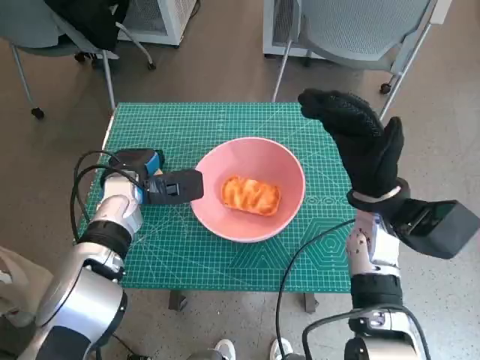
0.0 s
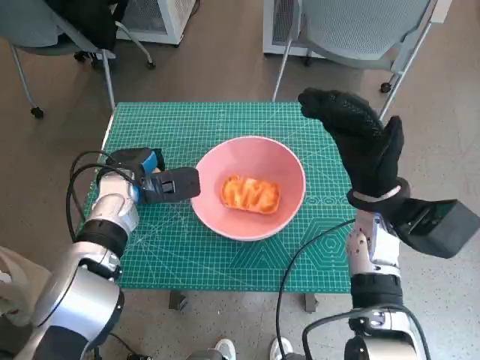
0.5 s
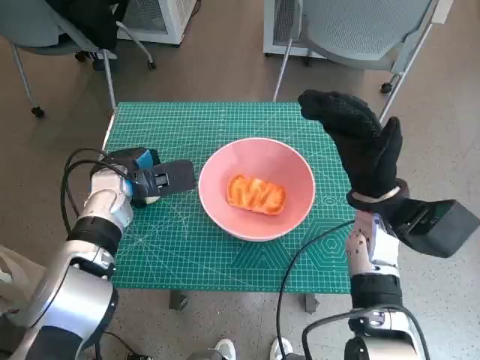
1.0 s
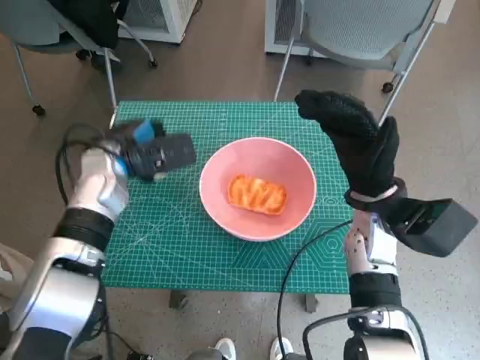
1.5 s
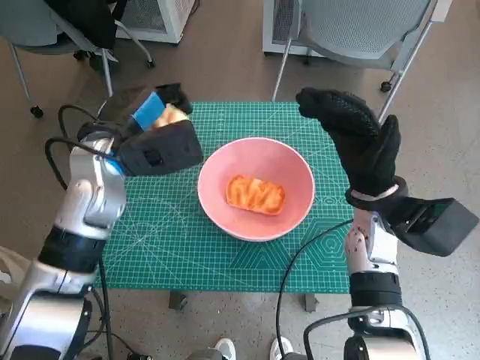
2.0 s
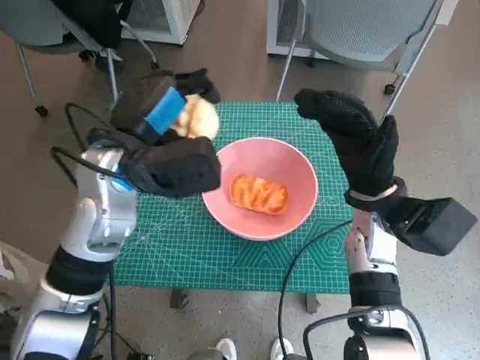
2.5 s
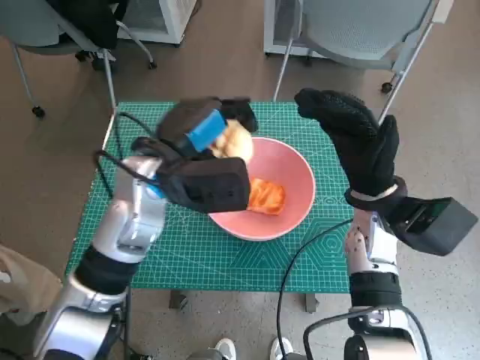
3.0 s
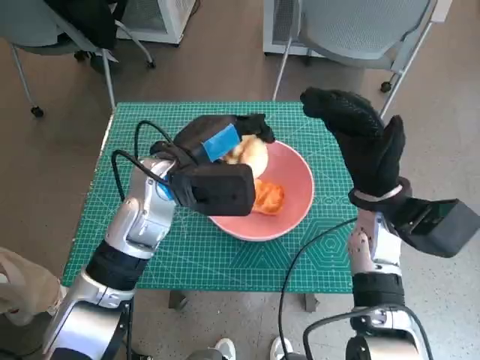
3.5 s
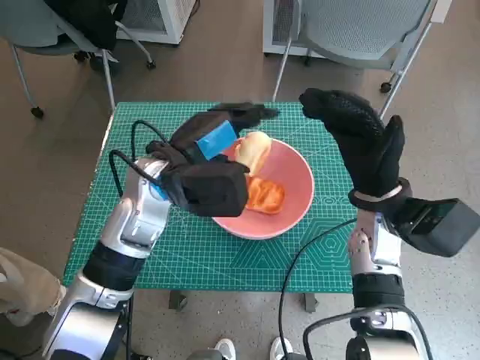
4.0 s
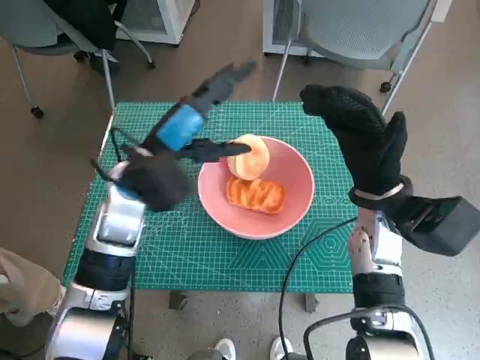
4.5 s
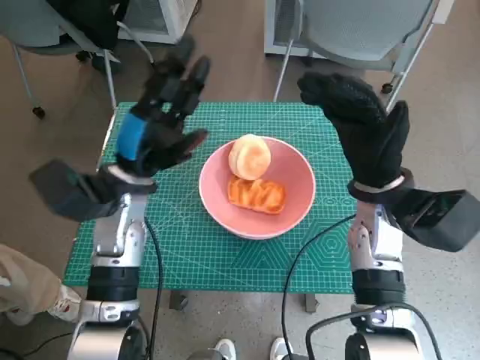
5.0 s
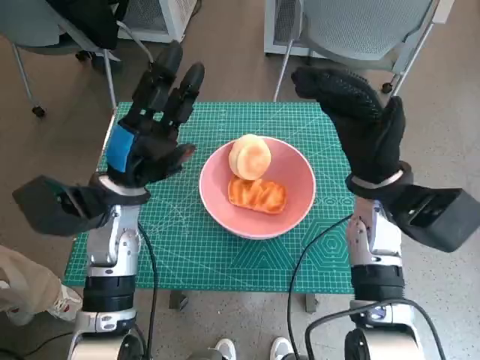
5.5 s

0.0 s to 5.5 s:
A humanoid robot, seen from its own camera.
Step, 1.0 to 3.5 s: Place the round bread in pink bowl with left hand.
0.0 to 2.0 s: The left hand heads upward, covering roughly 10 cm.
2.0 to 3.5 s: The left hand moves to the right, approximately 5 cm.
3.5 to 5.5 s: The left hand shifts roughly 5 cm to the left.

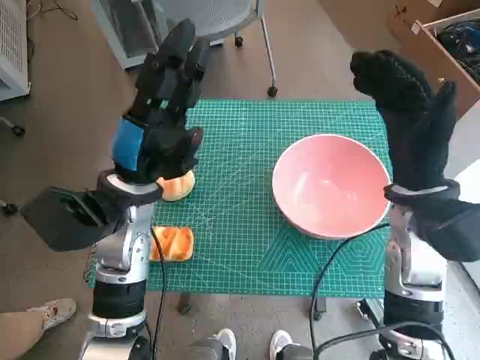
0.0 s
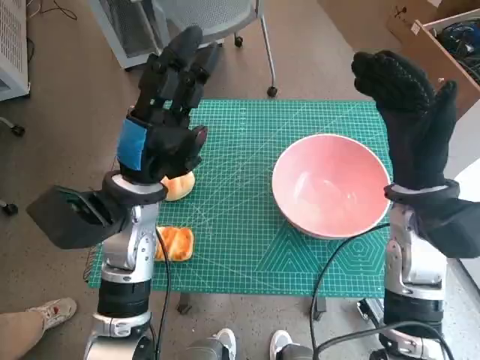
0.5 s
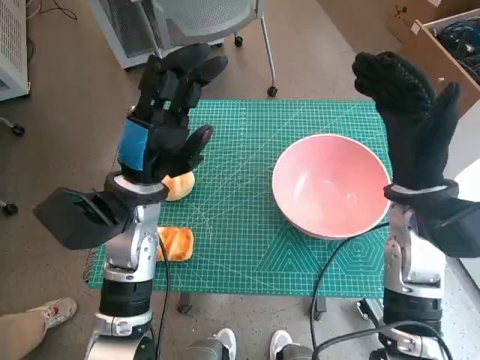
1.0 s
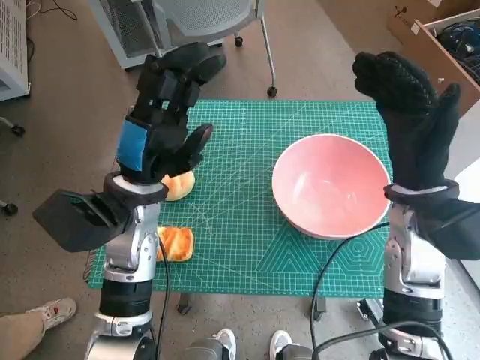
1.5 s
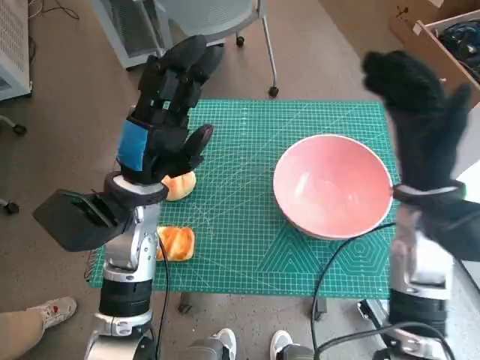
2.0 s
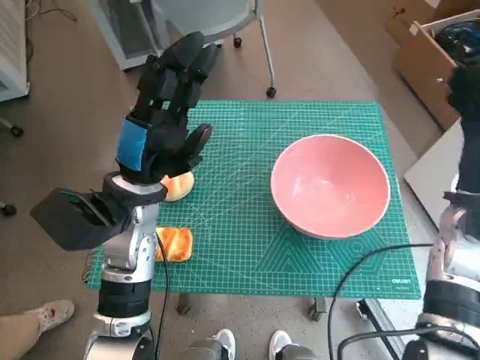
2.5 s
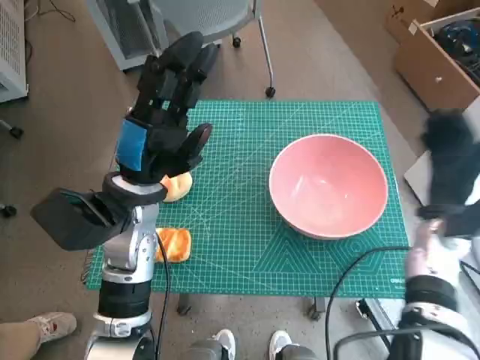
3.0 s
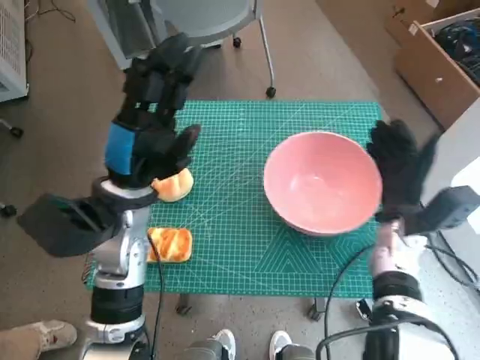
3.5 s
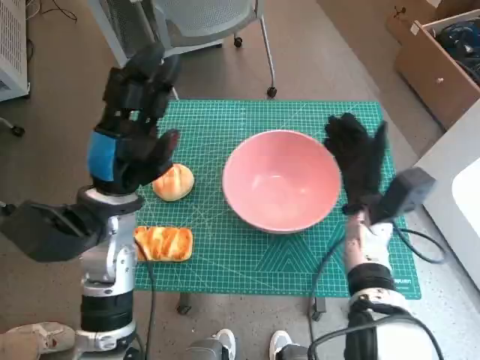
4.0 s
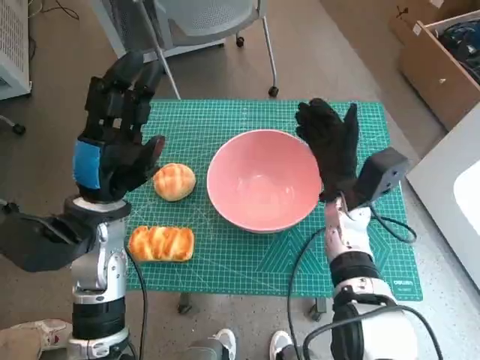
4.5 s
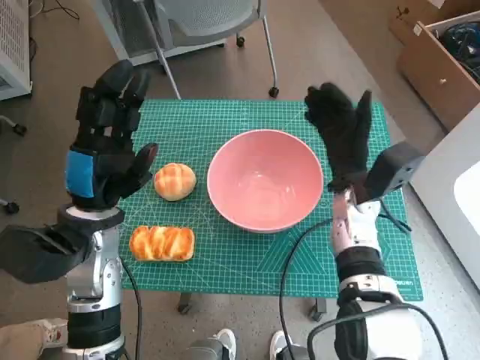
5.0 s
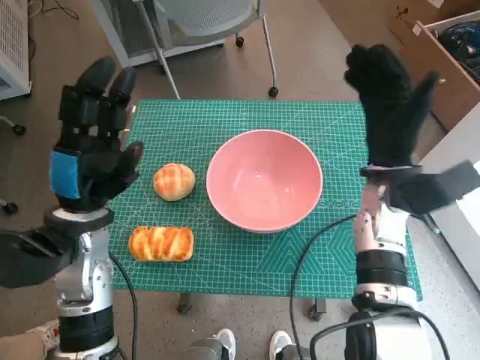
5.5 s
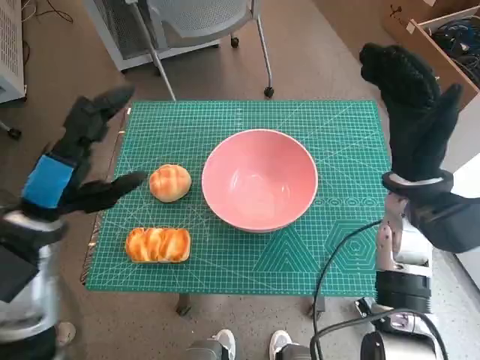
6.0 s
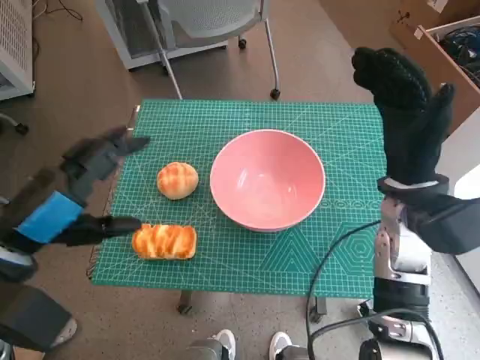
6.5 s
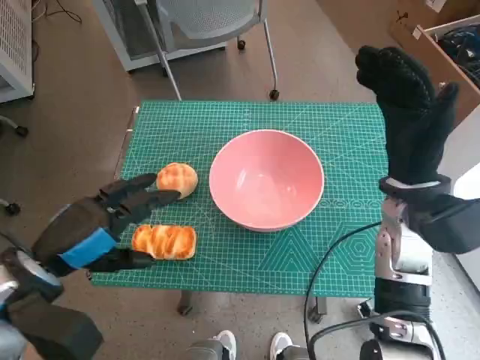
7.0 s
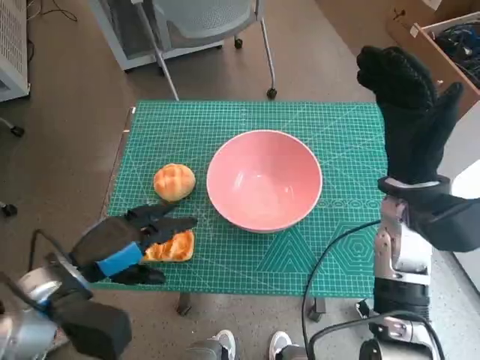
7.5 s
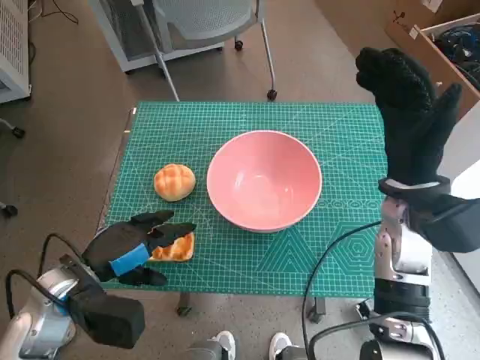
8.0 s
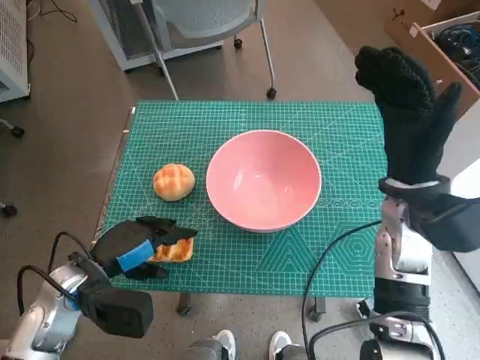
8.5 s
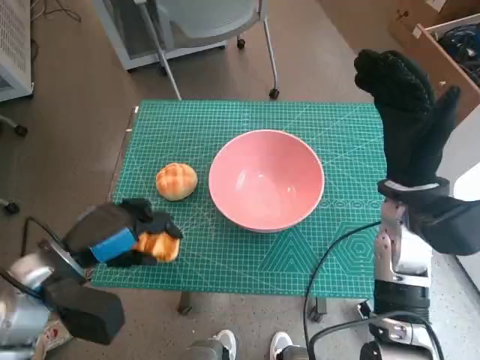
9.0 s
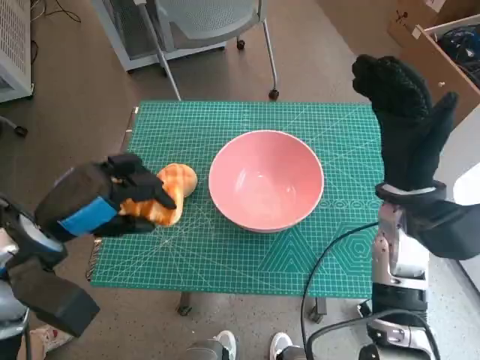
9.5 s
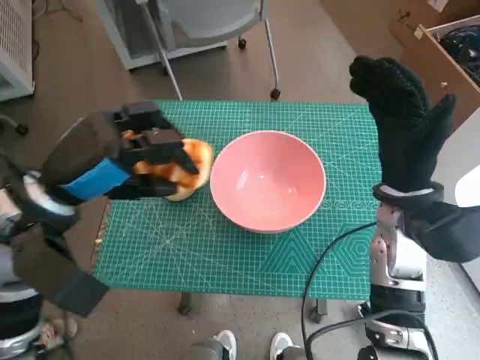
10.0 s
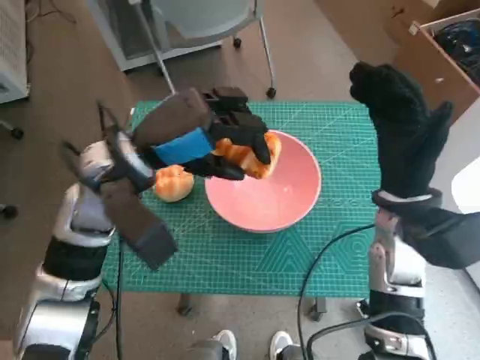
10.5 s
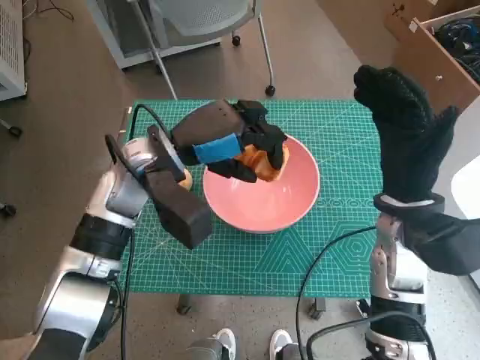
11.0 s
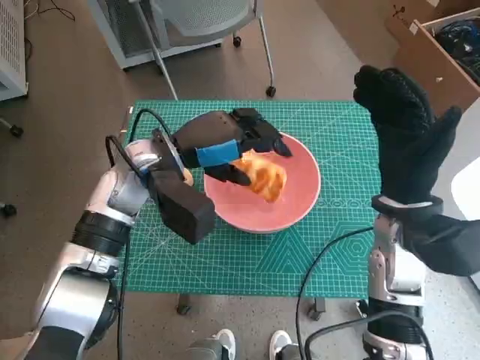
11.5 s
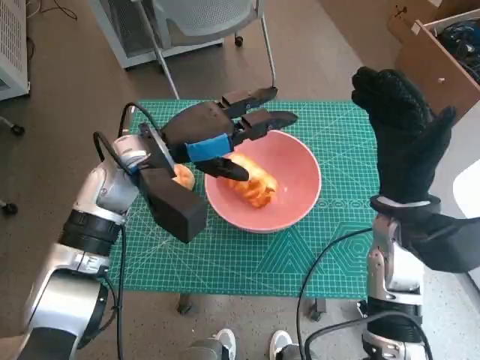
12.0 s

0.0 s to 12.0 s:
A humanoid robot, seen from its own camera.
Step, 0.0 to 4.5 s: Move the pink bowl to the center of table with right hand.
Step, 5.0 to 8.5 s: Grasp the long bread with left hand.
Step, 9.0 to 11.5 s: Place the long bread in pink bowl with left hand.
2.0 to 4.0 s: The right hand heads downward, covering approximately 10 cm.
4.0 to 6.0 s: The left hand heads to the left, covering some 5 cm. The right hand goes some 10 cm upward.
6.0 to 8.0 s: The left hand travels downward by roughly 10 cm.
8.0 to 10.0 s: The left hand goes approximately 15 cm upward.
10.0 to 12.0 s: The left hand is displaced forward and to the right by some 10 cm.

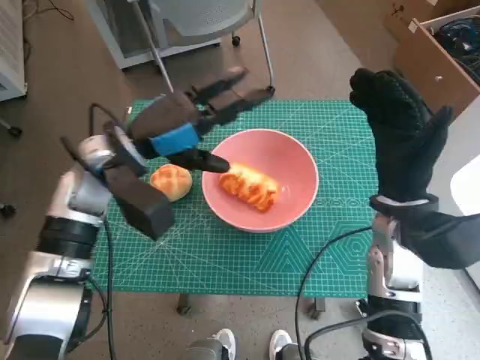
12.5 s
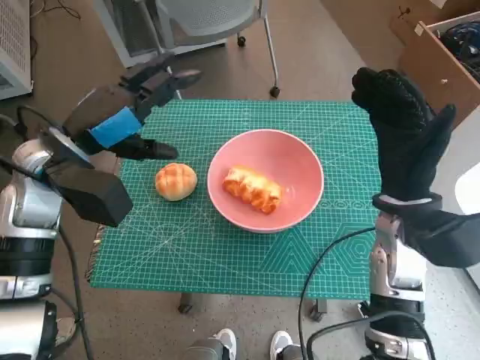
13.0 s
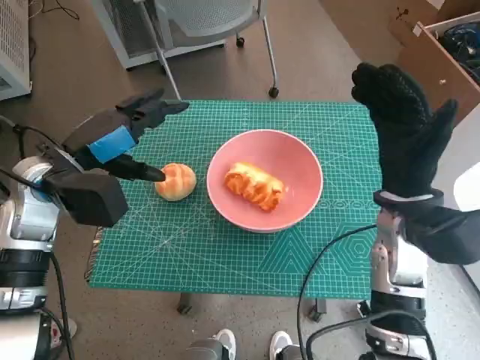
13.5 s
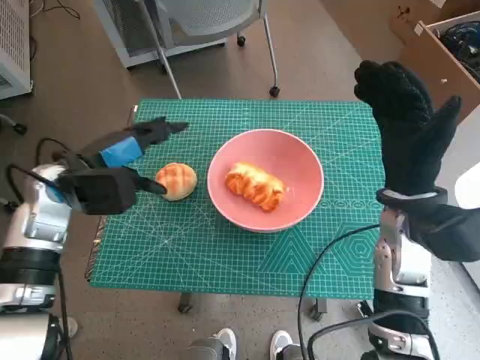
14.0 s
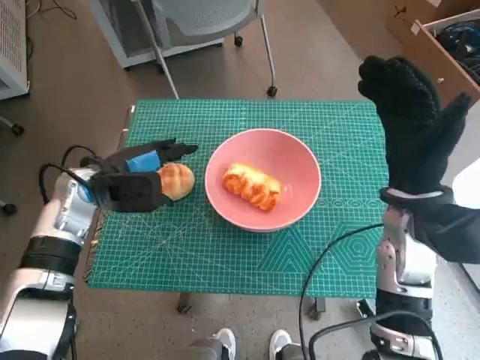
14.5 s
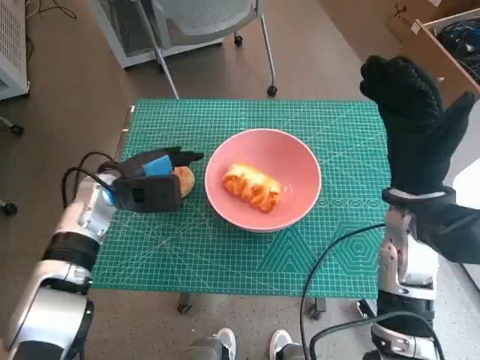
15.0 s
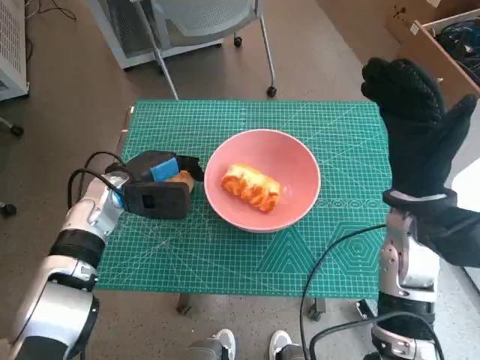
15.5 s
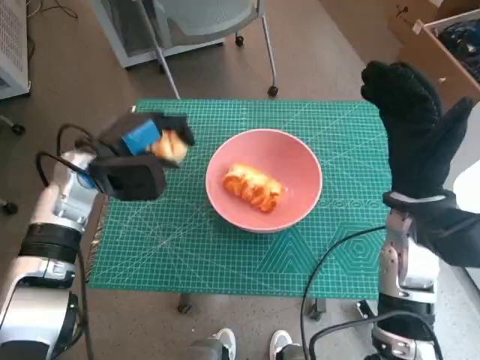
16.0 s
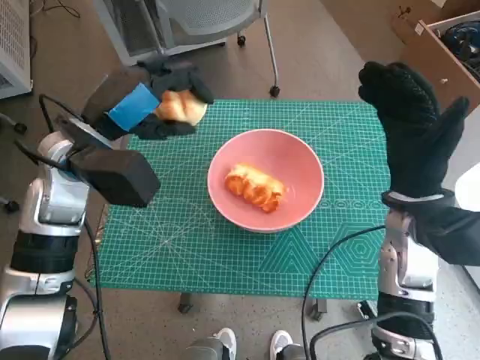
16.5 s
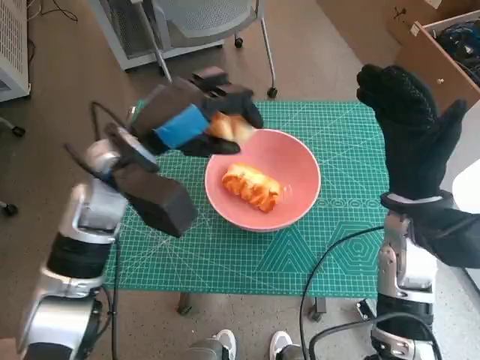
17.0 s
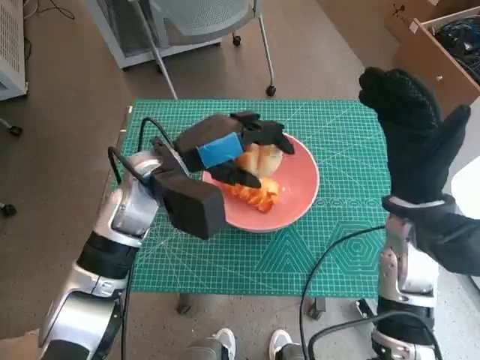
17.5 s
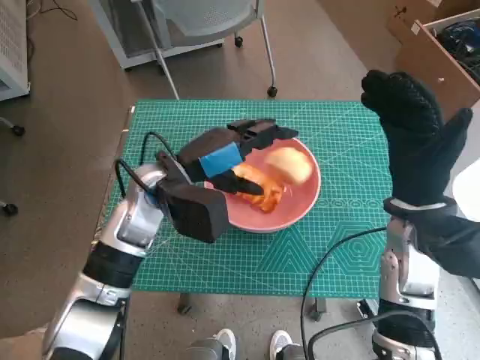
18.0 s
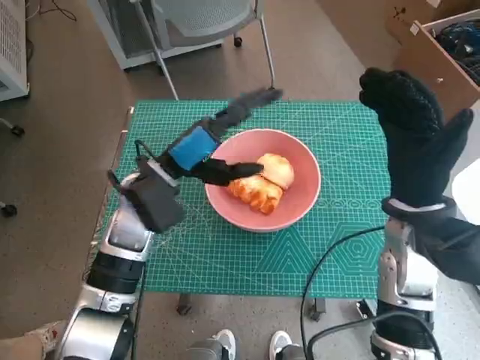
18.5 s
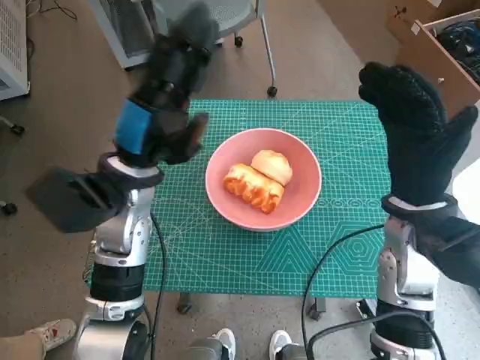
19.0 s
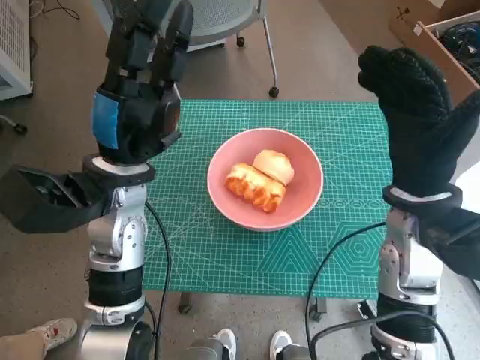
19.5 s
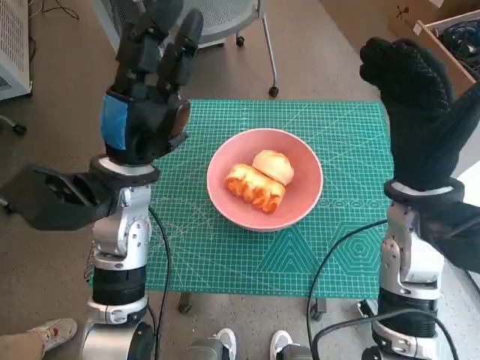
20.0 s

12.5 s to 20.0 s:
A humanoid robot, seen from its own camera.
Step, 12.5 to 15.0 s: Grasp the round bread with left hand.
Step, 15.5 to 17.5 s: Place the round bread in pink bowl with left hand.
12.5 to 14.5 s: The left hand goes approximately 10 cm downward and to the left.
14.5 to 16.5 s: The left hand heads upward, covering some 10 cm.
16.5 to 18.0 s: The left hand heads to the right and downward, covering approximately 10 cm.
